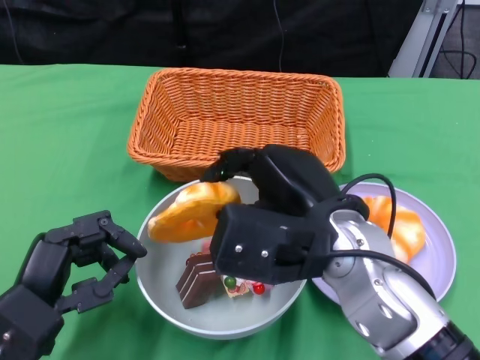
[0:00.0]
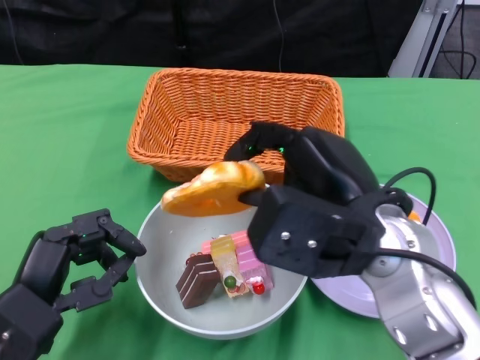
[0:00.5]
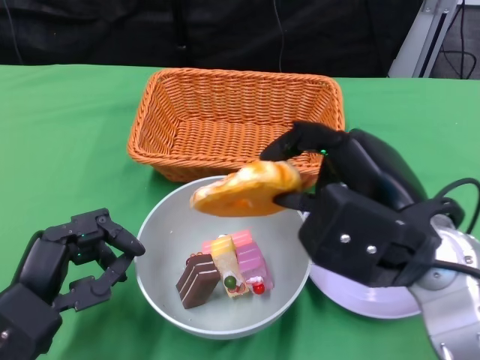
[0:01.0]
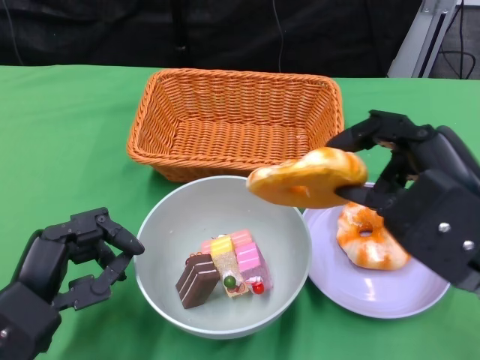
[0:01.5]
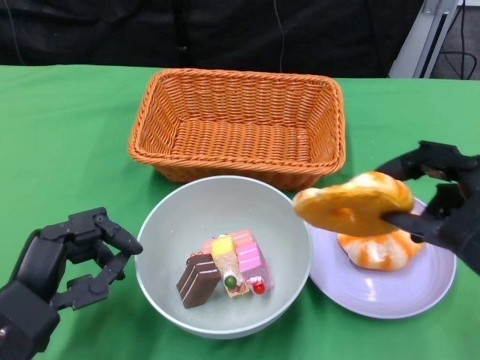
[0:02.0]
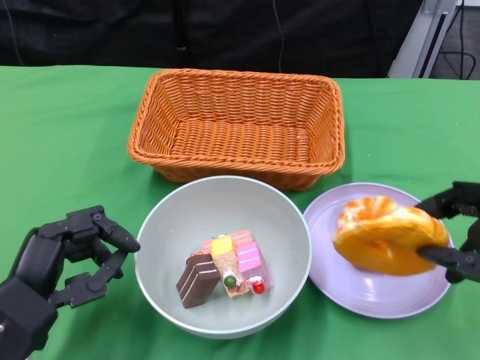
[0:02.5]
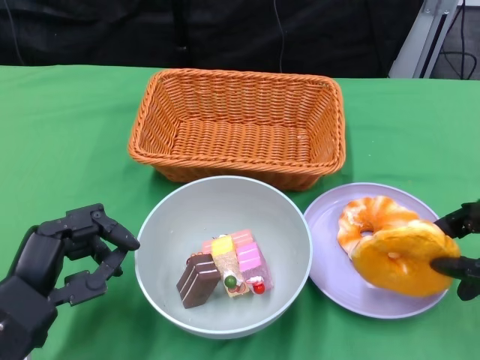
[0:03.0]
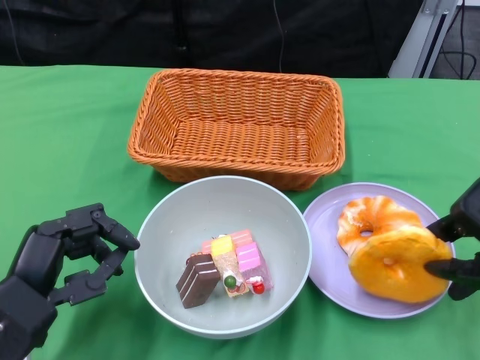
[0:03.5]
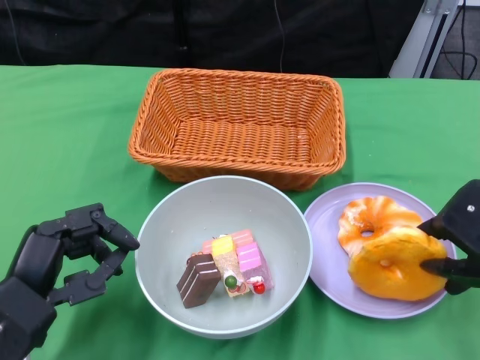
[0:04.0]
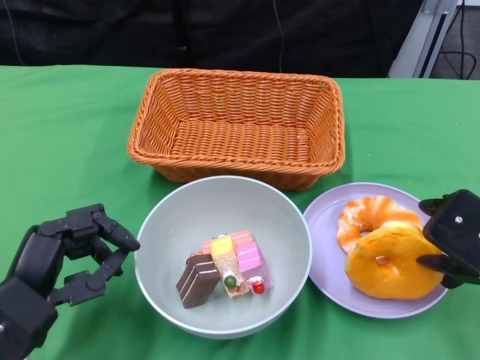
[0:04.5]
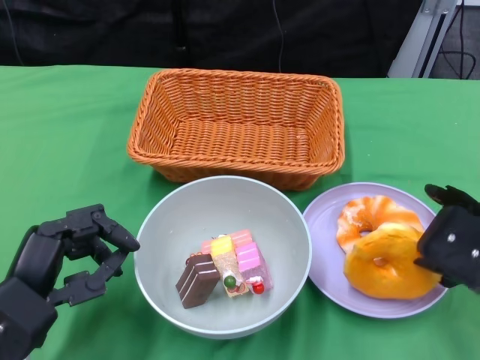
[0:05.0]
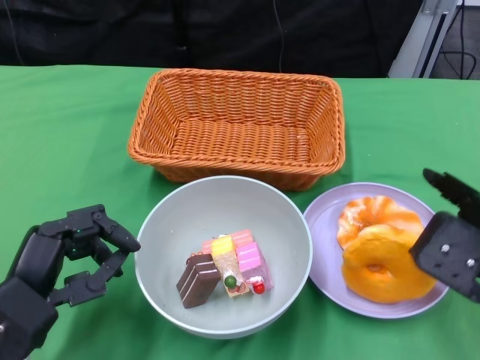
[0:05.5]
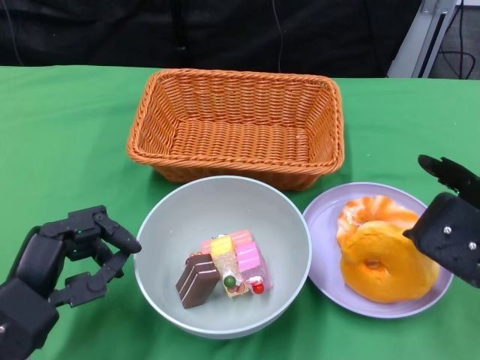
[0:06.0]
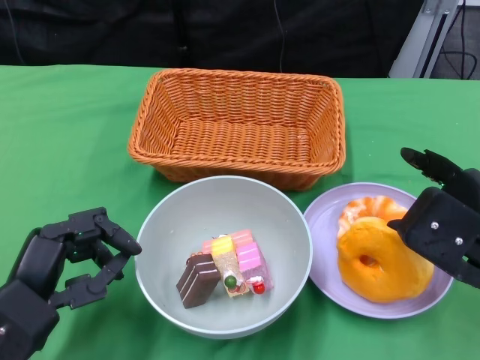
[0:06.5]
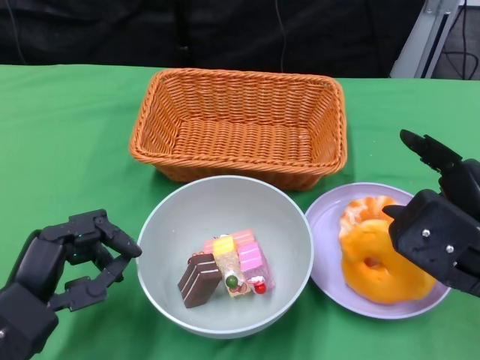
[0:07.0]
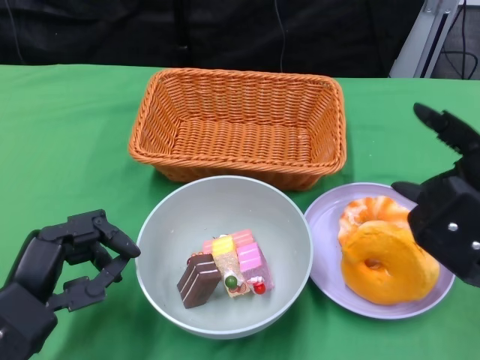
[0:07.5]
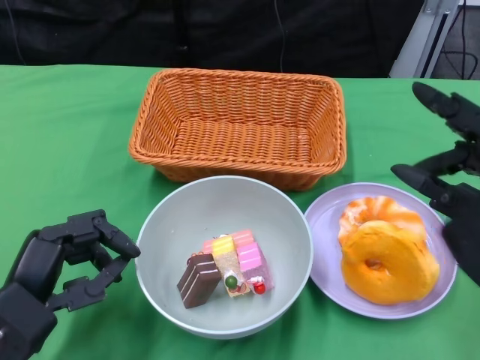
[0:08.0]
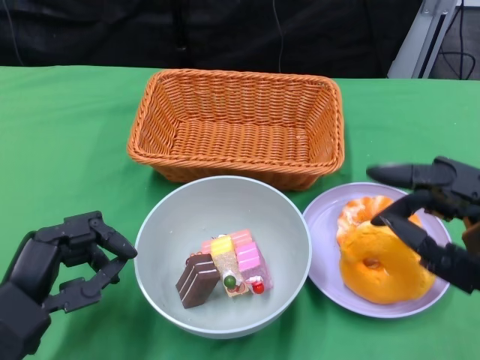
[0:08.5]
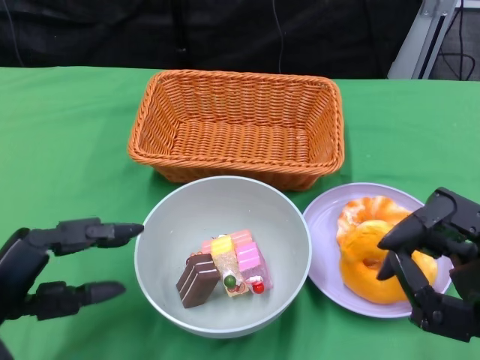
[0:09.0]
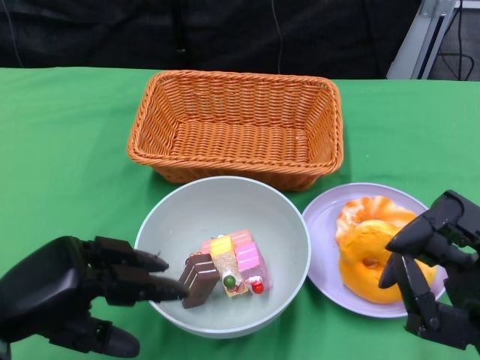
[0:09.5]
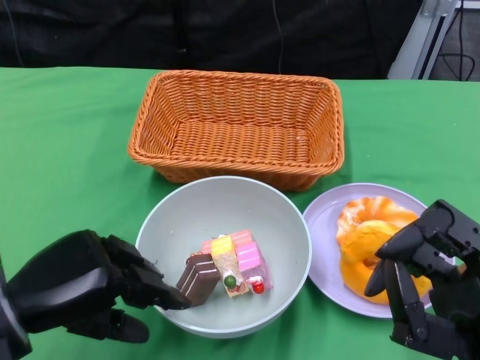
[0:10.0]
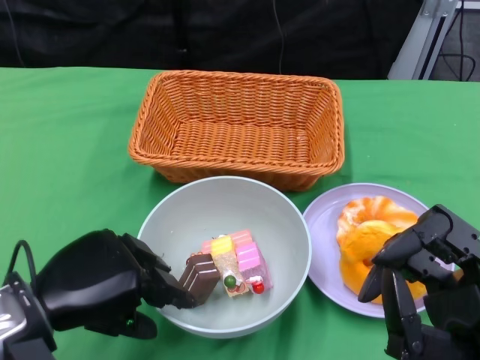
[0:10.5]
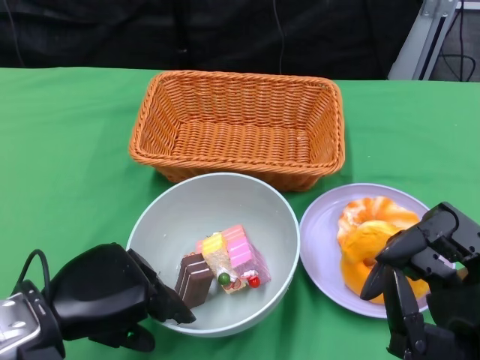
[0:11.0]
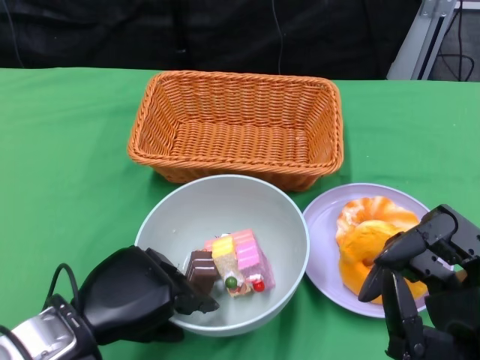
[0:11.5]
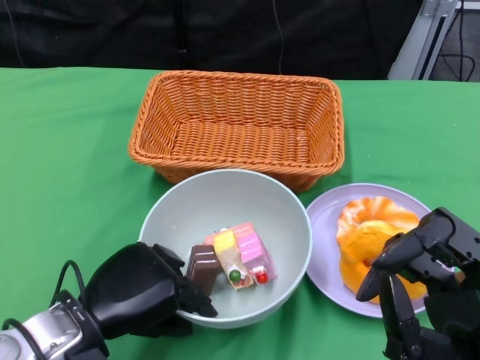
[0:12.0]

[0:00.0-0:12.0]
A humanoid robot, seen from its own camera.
Step, 0:00.0 to 0:07.5: Pick up the bread with the right gripper and place it on the plate.
Step, 0:08.0 to 0:11.5: Grasp the bowl with the left gripper.
0:00.0 to 0:02.0: The right hand goes approximately 15 cm to the right and backward.
0:02.0 to 0:04.0: The right hand moves roughly 5 cm.
0:04.0 to 0:06.0: The hands make only small movements.
0:08.0 to 0:10.0: The right hand moves backward and downward, roughly 10 cm.
0:10.0 to 0:12.0: The left hand travels to the right by approximately 5 cm.

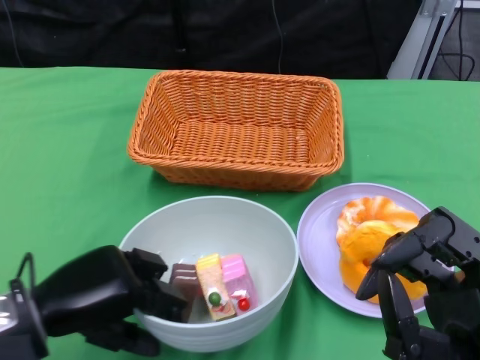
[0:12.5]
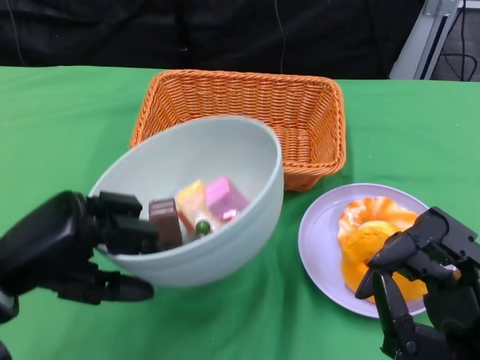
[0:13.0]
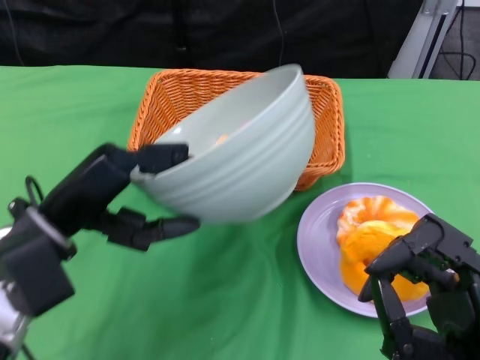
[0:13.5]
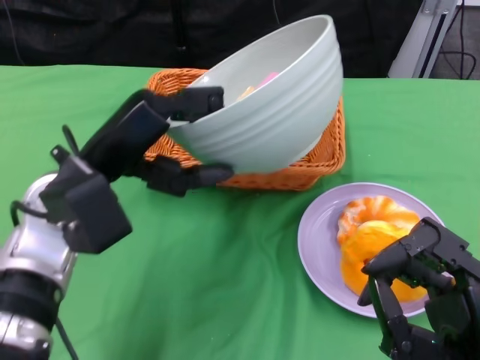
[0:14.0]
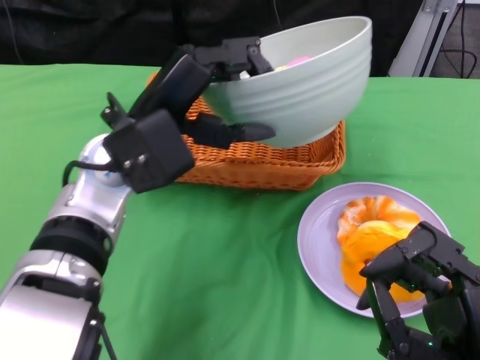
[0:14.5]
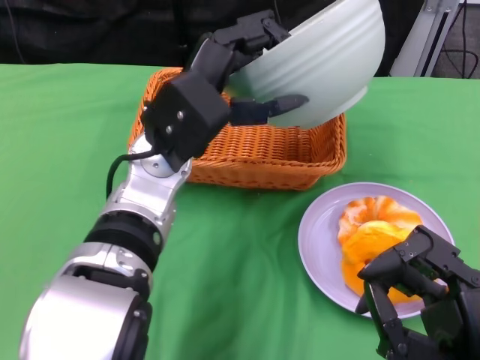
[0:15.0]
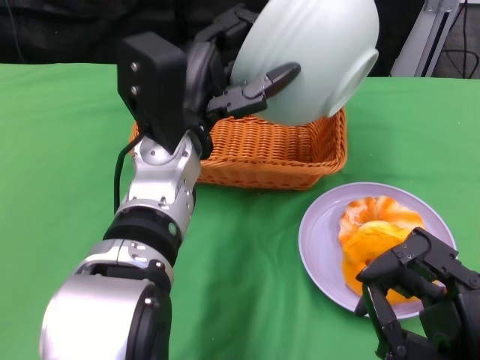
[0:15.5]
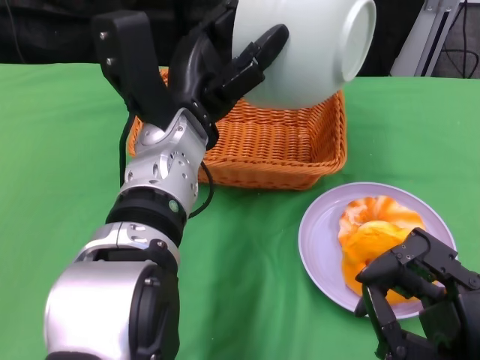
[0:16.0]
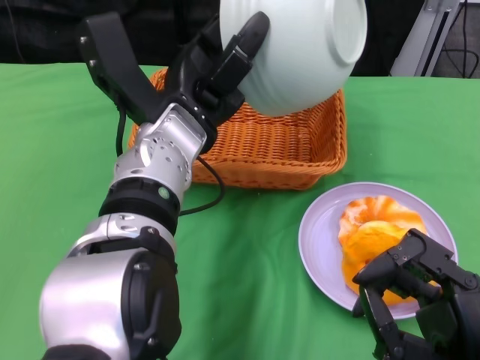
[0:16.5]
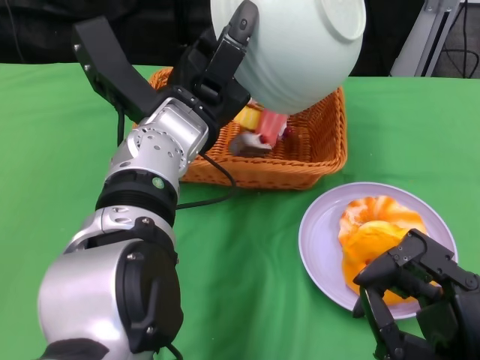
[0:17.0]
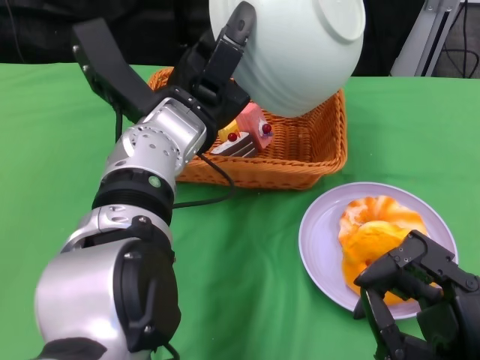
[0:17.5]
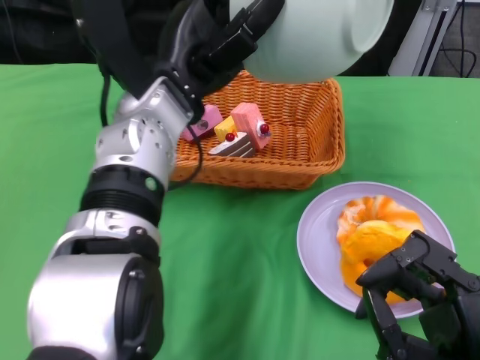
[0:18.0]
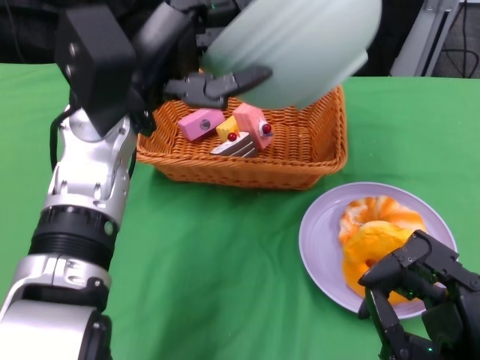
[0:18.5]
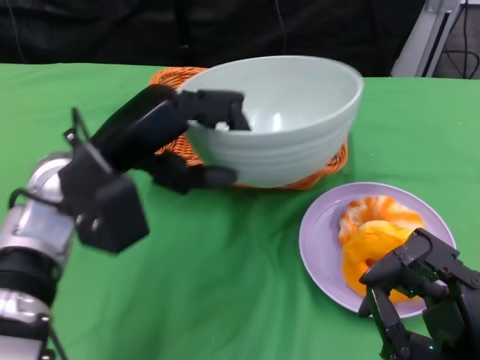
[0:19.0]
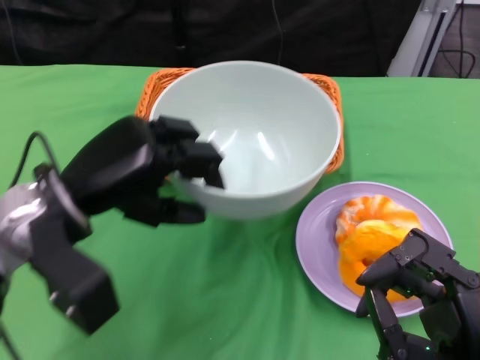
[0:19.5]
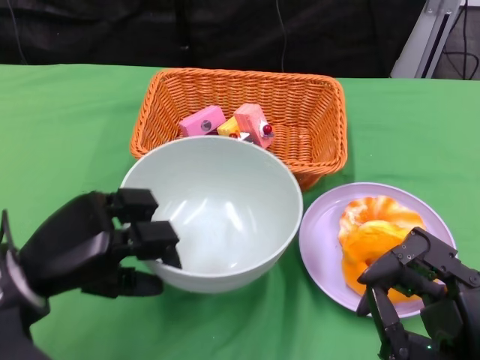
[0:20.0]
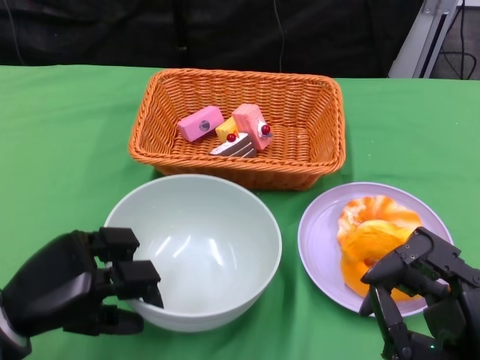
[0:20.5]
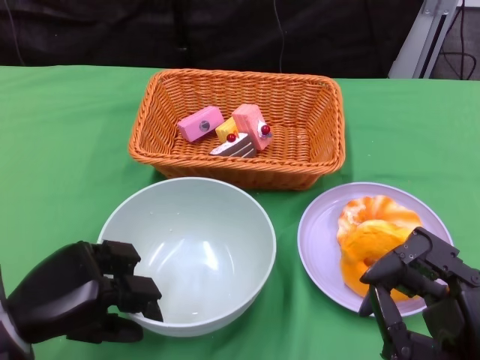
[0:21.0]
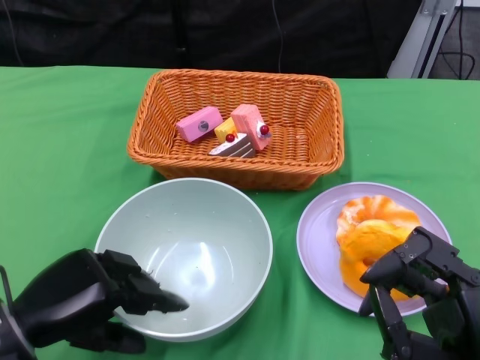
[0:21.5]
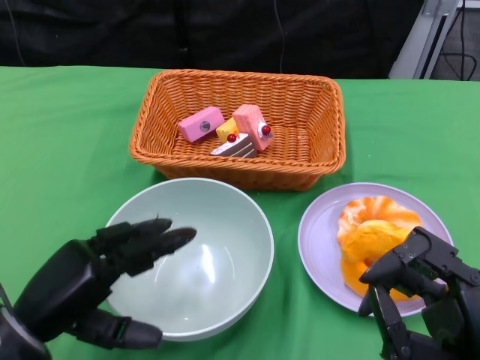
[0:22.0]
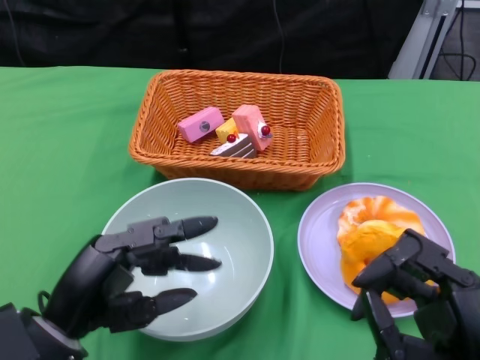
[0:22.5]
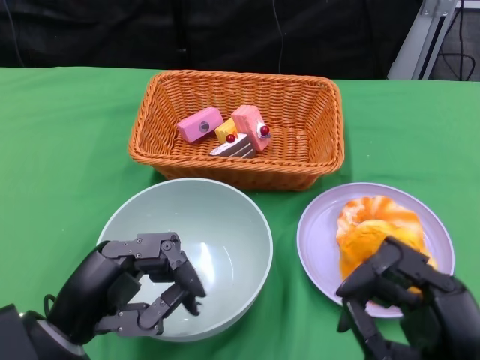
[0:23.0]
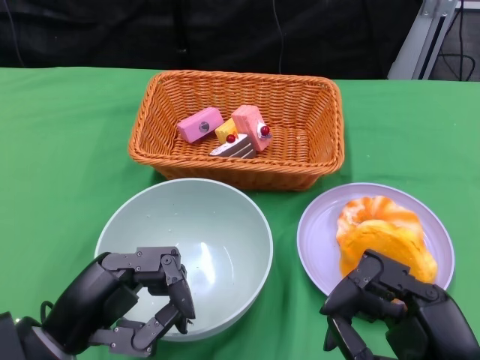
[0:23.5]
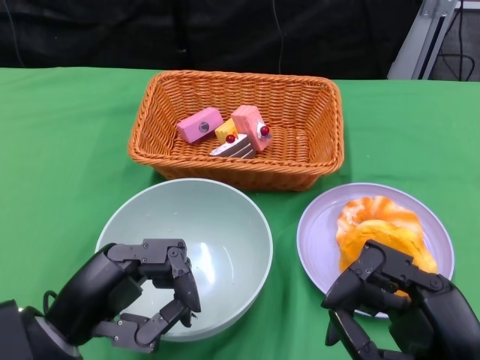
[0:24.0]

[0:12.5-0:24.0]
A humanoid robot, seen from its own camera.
Step, 0:12.5 to 0:17.5: Pour the cake into the basket with the left gripper.
Step, 0:18.0 to 0:21.5: Place the bowl on the table with the left gripper.
0:12.5 to 0:14.5: The left hand is displaced forward, to the right and upward by roughly 20 cm.
0:14.5 to 0:16.5: The left hand ends up approximately 5 cm from where it was.
0:16.5 to 0:18.5: The left hand goes about 5 cm to the left.
0:18.5 to 0:20.0: The left hand shifts approximately 15 cm downward, to the left and backward.
0:20.0 to 0:22.0: The left hand changes place by approximately 5 cm.

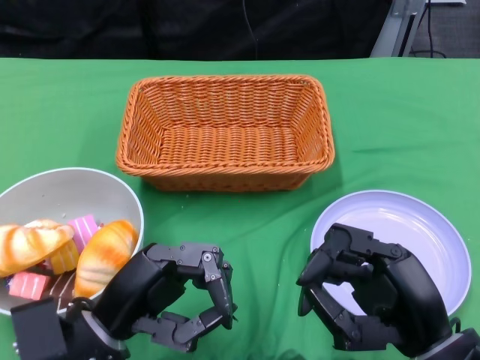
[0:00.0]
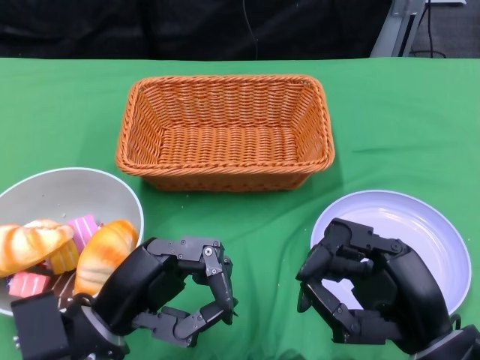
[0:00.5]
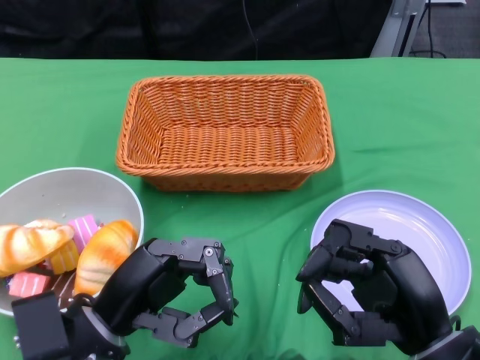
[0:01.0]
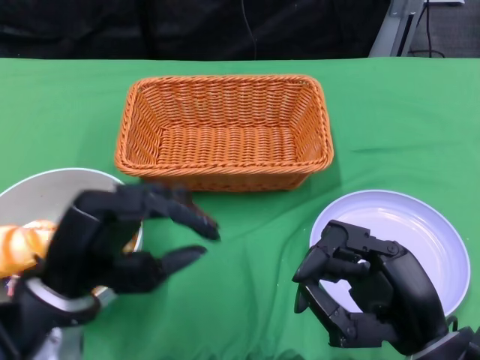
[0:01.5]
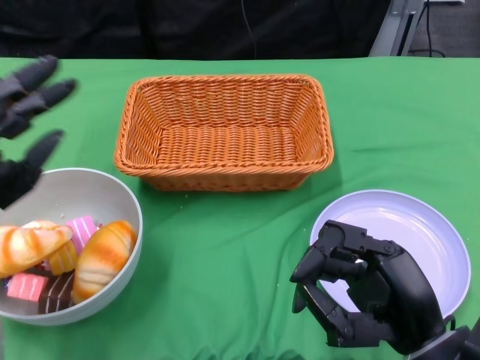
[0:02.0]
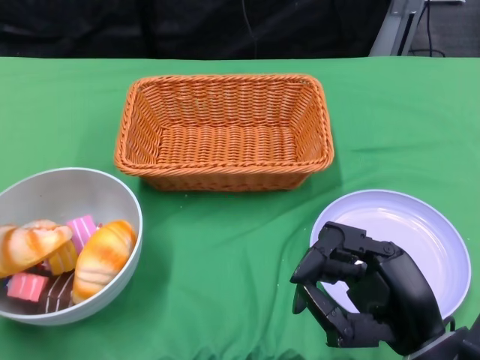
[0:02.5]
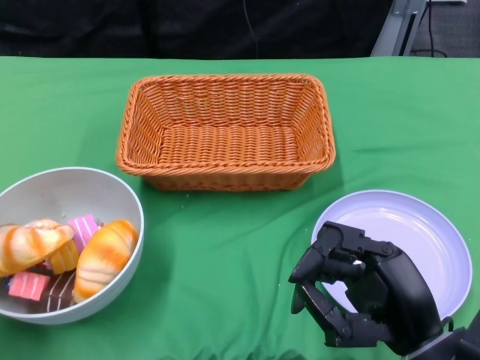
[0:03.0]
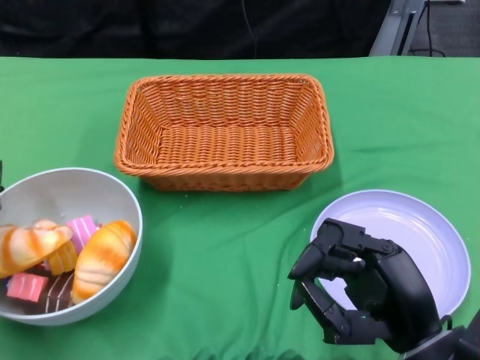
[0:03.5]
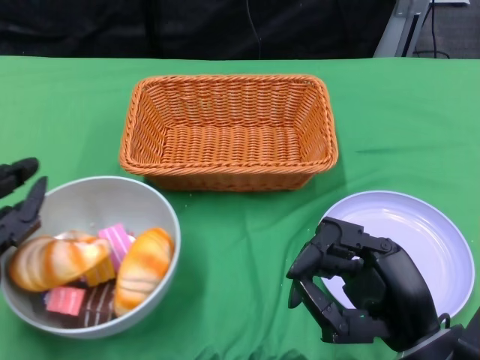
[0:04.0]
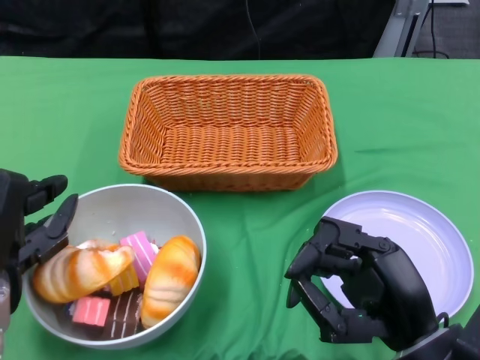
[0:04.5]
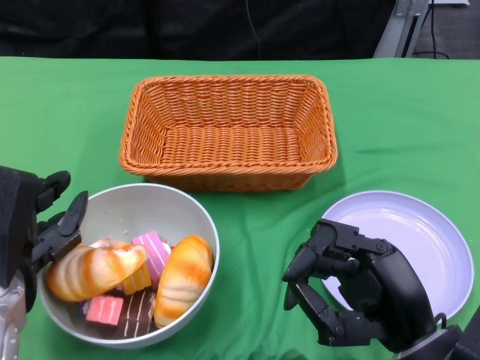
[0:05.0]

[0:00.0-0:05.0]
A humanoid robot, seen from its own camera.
0:02.5 to 0:05.0: The left hand travels to the right by about 5 cm.
